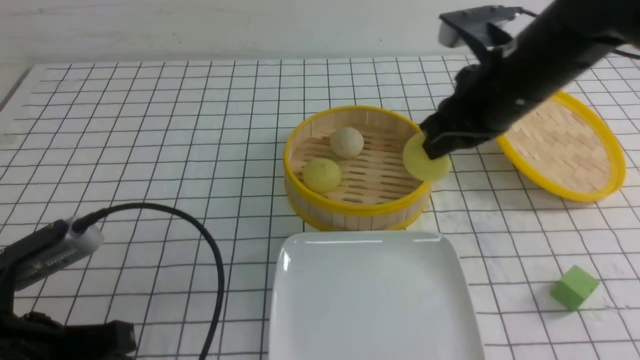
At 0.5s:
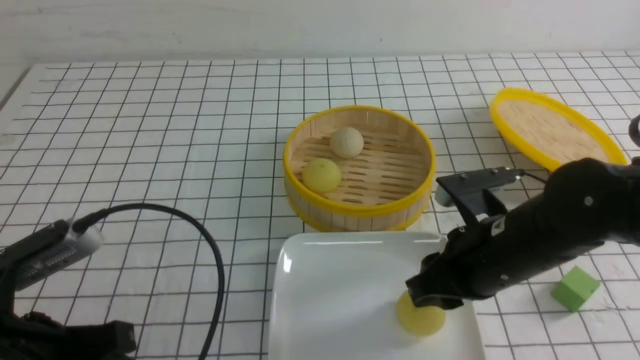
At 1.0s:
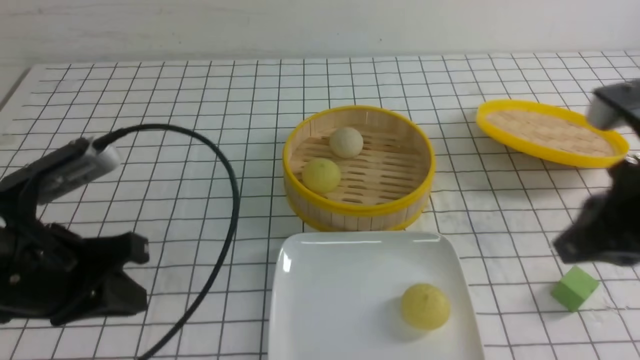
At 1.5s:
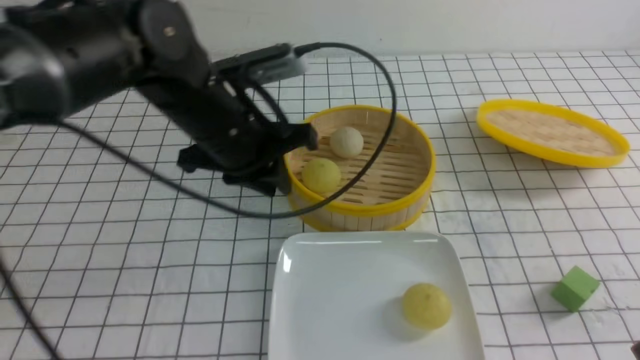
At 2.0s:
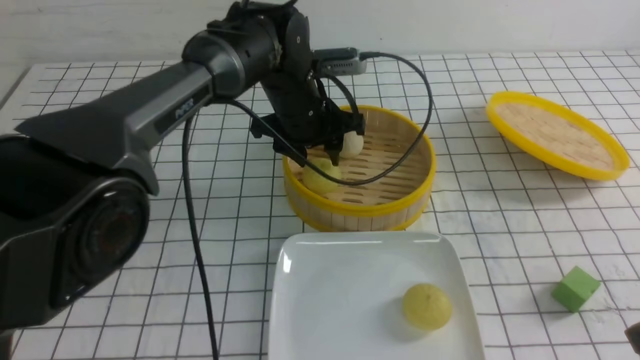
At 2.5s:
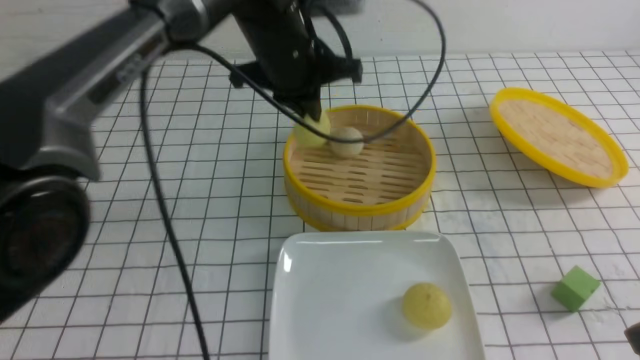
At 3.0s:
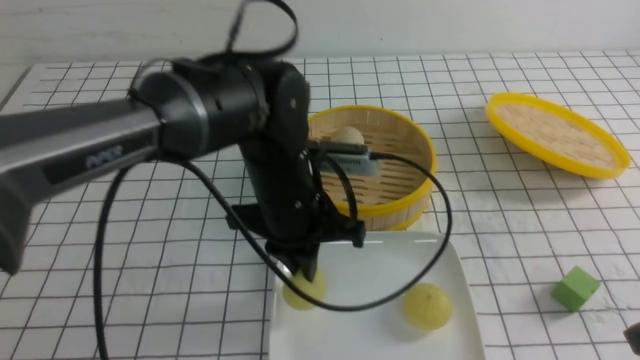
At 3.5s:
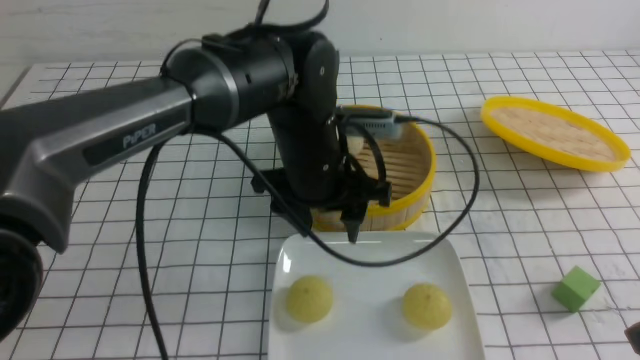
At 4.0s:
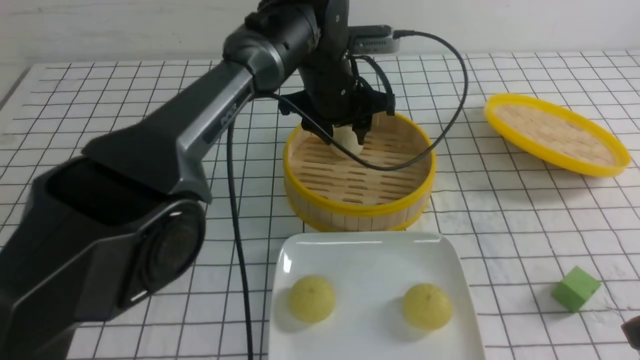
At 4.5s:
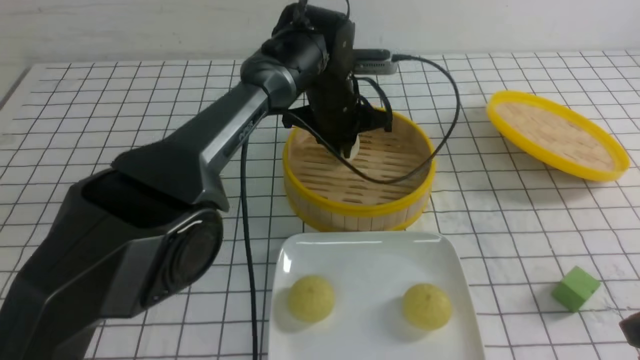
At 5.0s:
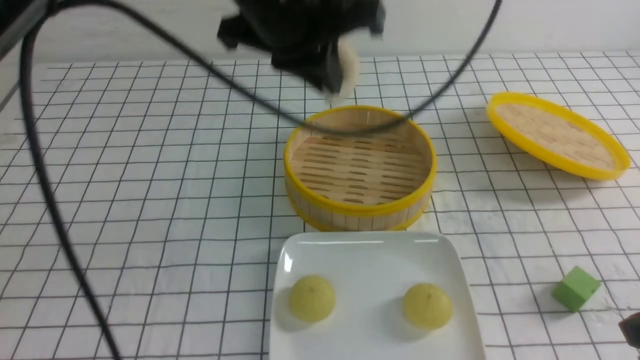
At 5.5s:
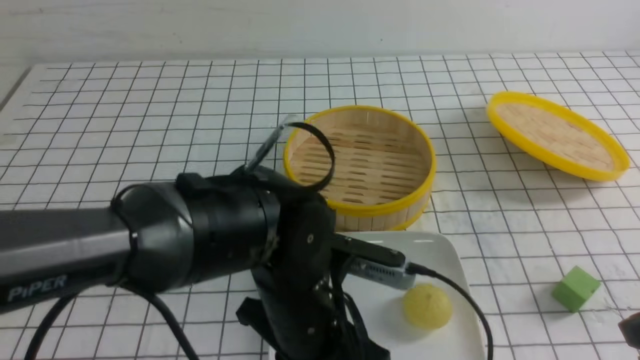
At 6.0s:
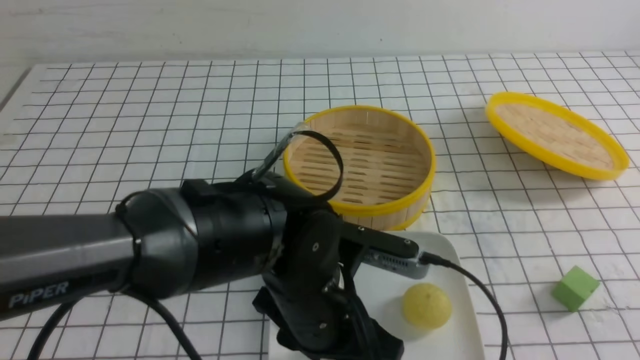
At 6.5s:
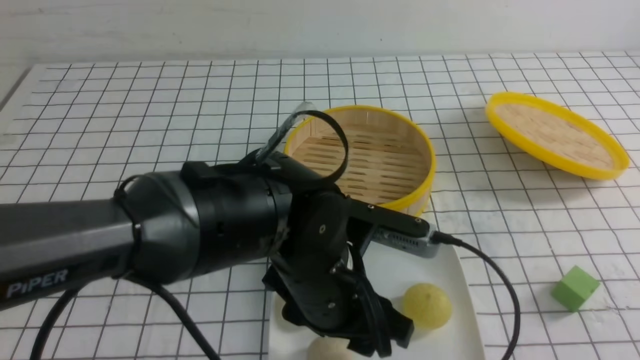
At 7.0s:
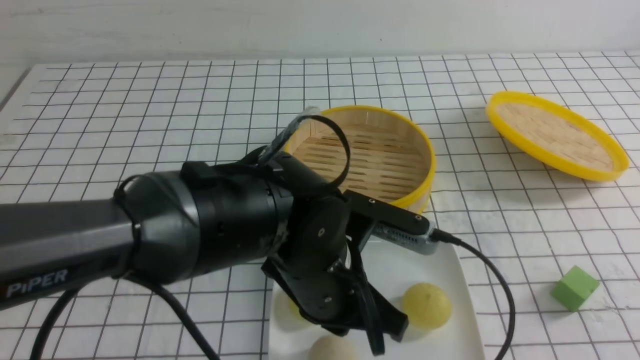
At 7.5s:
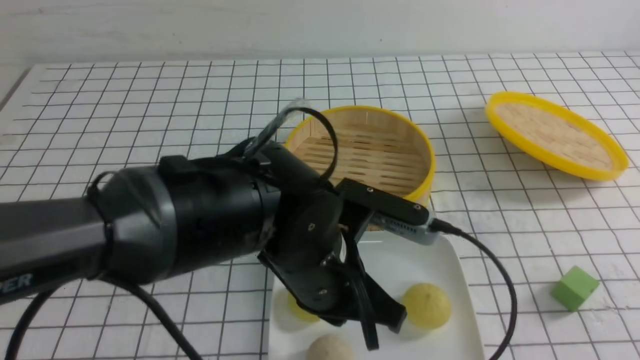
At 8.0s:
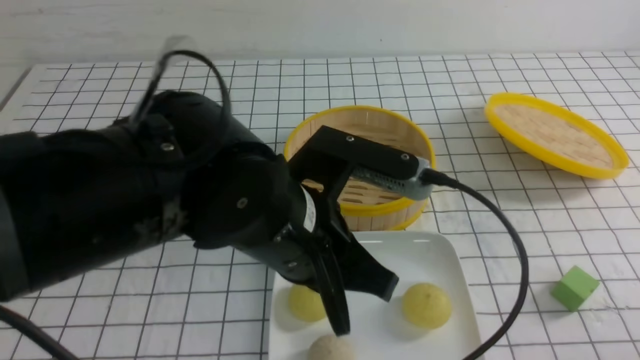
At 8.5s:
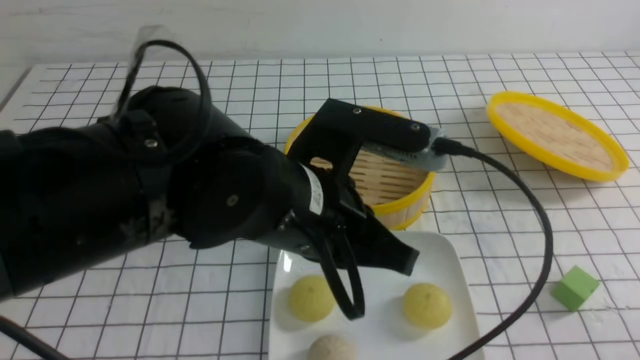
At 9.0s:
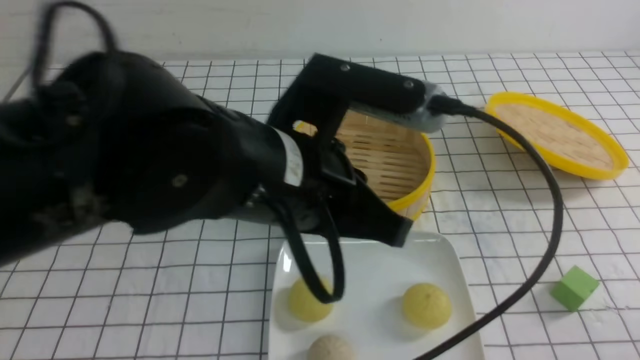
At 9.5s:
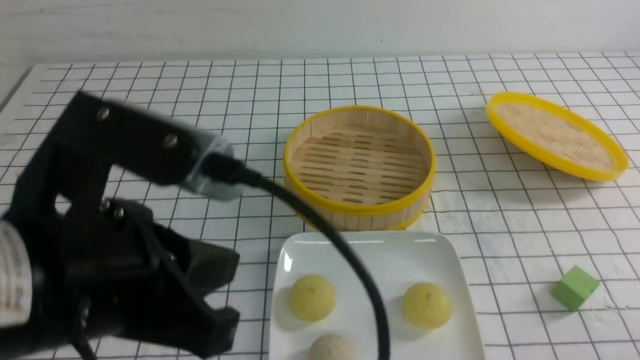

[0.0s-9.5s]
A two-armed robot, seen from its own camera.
Step, 0.0s to 0.5s: use the right arm to put the steamed stuffed bun into the plate.
Step, 1.0s to 2.0s: use the left arm to grab the steamed stuffed bun that is closest to it.
Step, 2.5s to 3.0s: use the left arm to put the steamed stuffed bun into the plate.
Step, 3.5s to 4.0s: use the left arm to grab the steamed stuffed bun that is closest to it.
Step, 4.5s to 6.0s: use the left arm to put the steamed stuffed bun into the plate.
0.0s to 2.0s: The right gripper moves backward and to the right, about 25 cm, and opens, then closes again; the left gripper goes some 35 cm forward and to the right.
2.0s to 4.0s: The left gripper moves approximately 10 cm backward and comes back, and closes, then opens again.
4.0s to 5.5s: The left gripper shifts approximately 25 cm backward, and closes.
5.5s to 7.5s: The right gripper goes about 10 cm backward, while the left gripper opens, then closes again.
7.5s to 9.5s: The right gripper moves downward, some 10 cm; the left gripper heads to the left, upward and backward, covering some 20 cm.

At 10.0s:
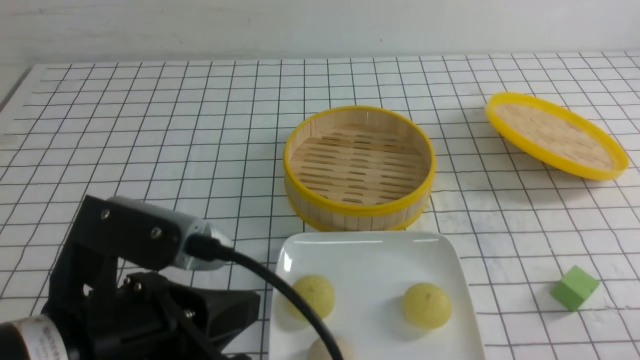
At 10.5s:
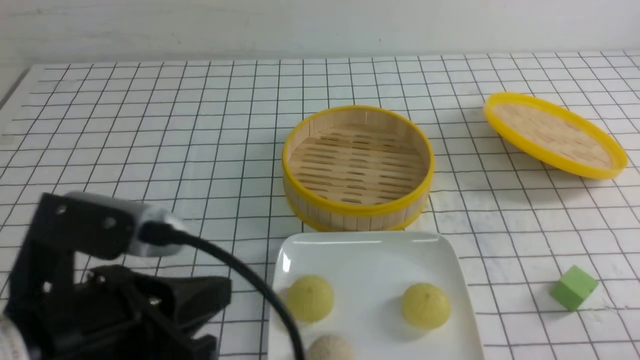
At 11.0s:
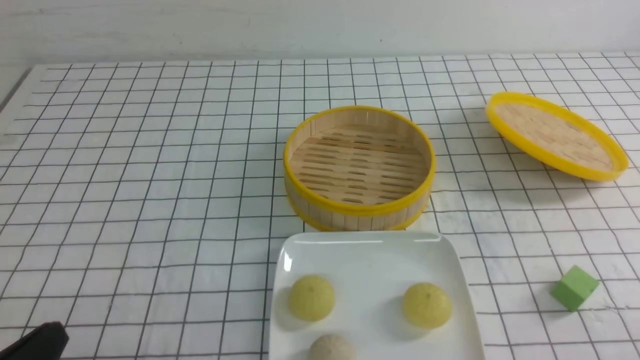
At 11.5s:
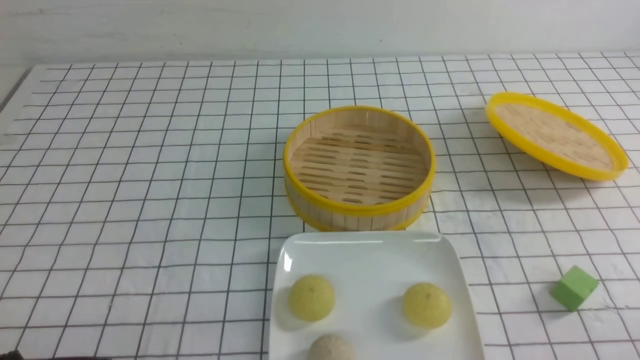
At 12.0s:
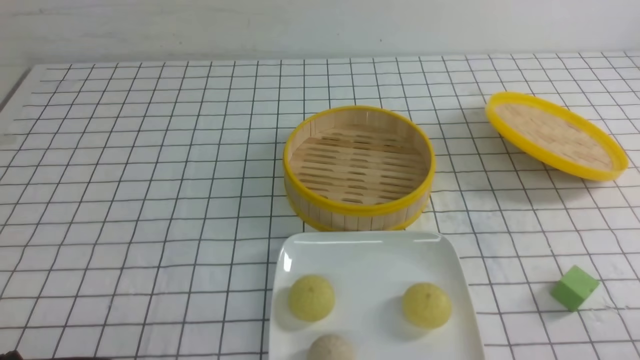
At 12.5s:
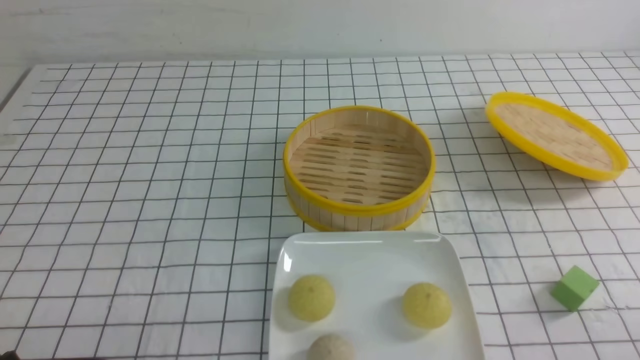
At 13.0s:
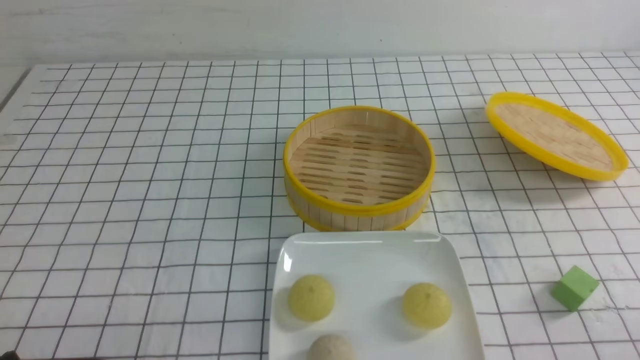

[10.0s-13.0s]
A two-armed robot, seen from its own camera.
10.0s to 11.5s: The left gripper moves to the left, downward and backward, some 20 cm.
11.5s to 13.0s: Both grippers stay put.
